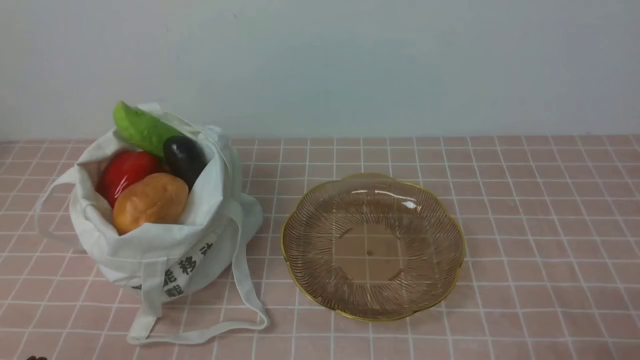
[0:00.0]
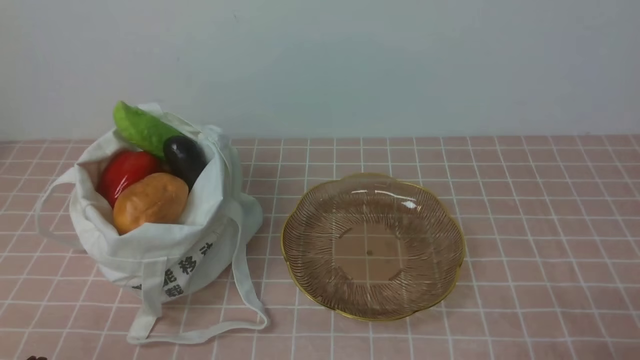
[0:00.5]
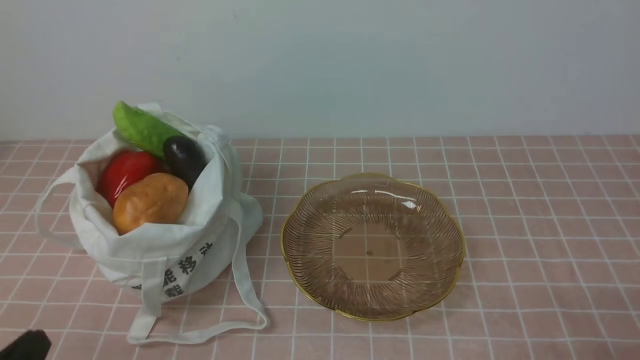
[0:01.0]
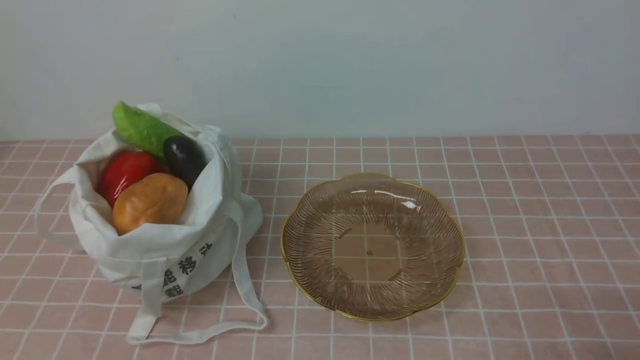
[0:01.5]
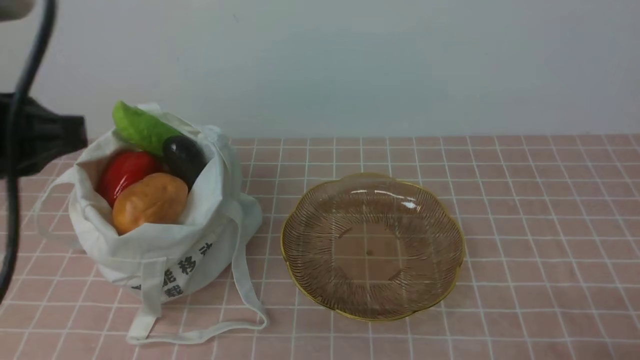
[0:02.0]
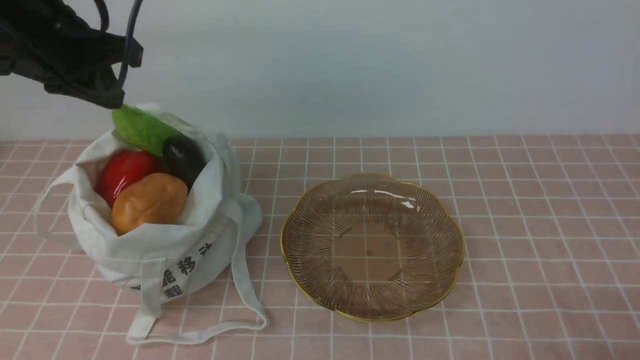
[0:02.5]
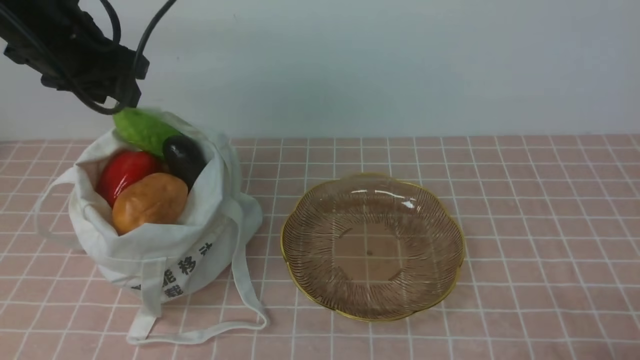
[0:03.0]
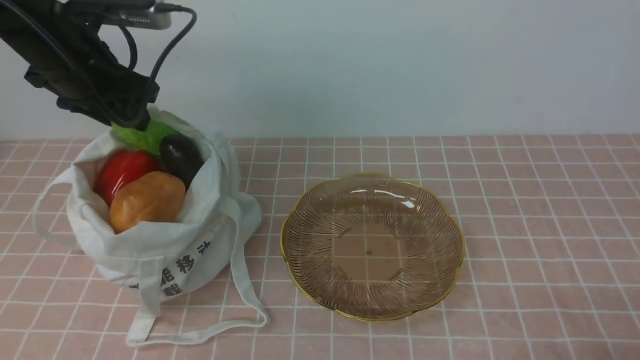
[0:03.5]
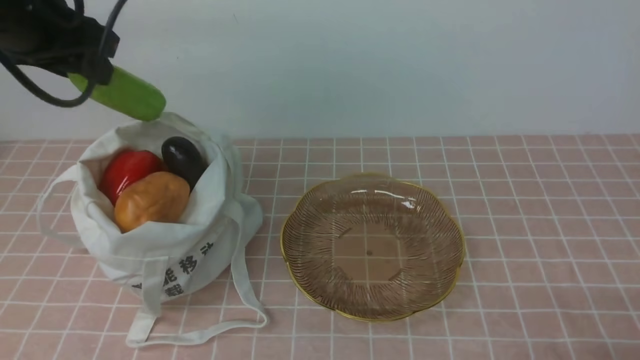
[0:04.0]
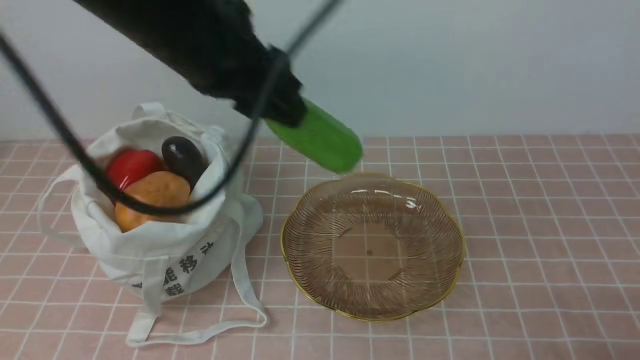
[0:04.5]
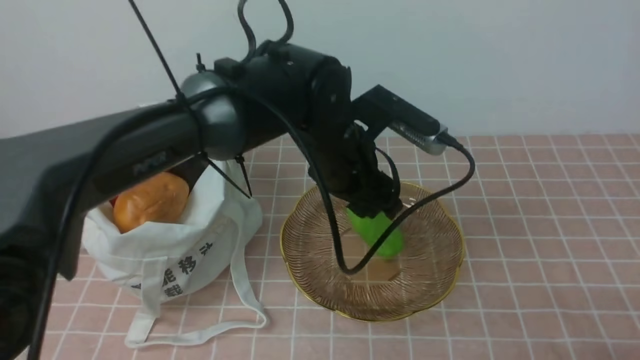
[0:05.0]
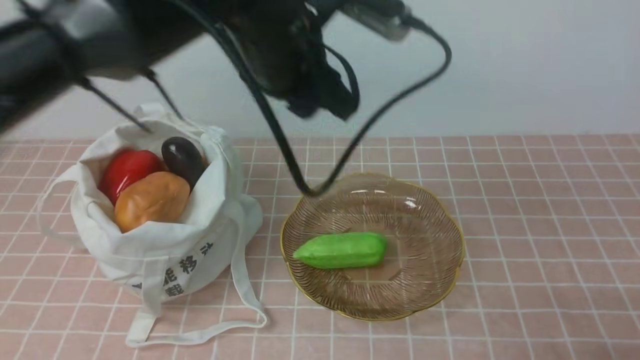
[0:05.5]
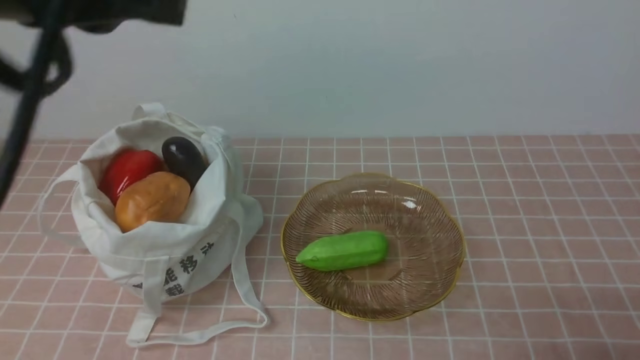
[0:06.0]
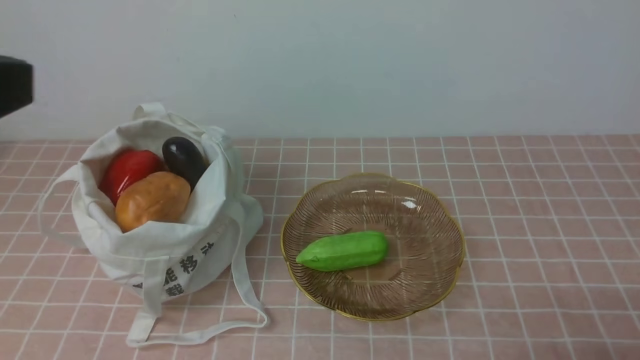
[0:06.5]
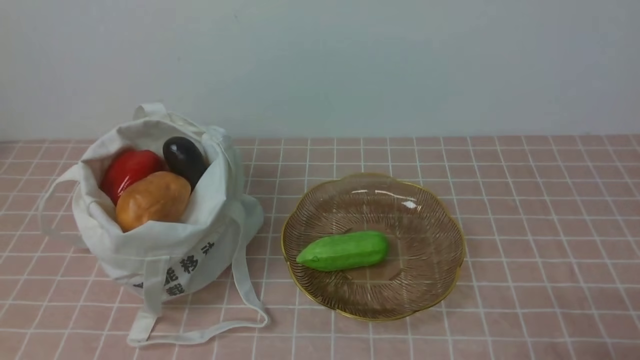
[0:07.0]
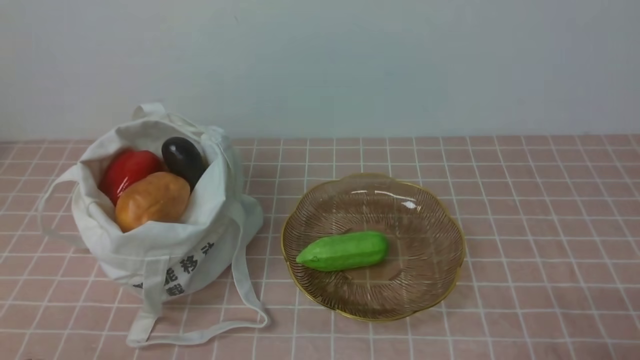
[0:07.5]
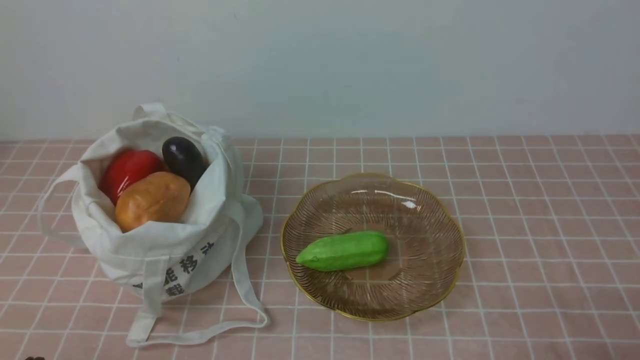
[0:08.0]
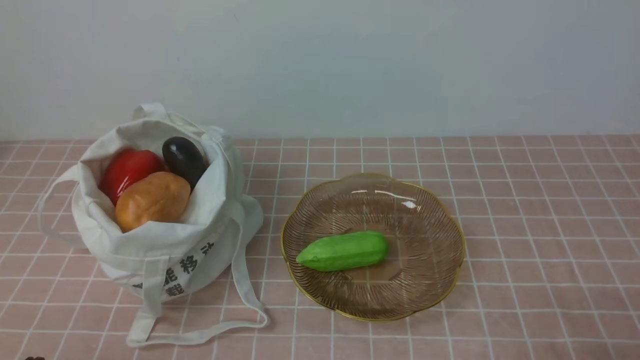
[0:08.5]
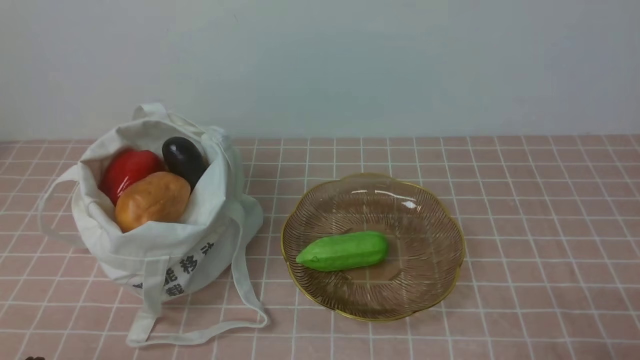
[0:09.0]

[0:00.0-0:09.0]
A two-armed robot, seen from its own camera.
Task of the whole recording: take vegetables from bag on pink coffee tablecloth place on plate.
0:02.0 to 0:04.5: The left gripper moves forward and to the right, about 20 cm, and opens its fingers.
0:04.5 to 0:07.0: The left gripper travels backward and to the left by roughly 30 cm, and closes.

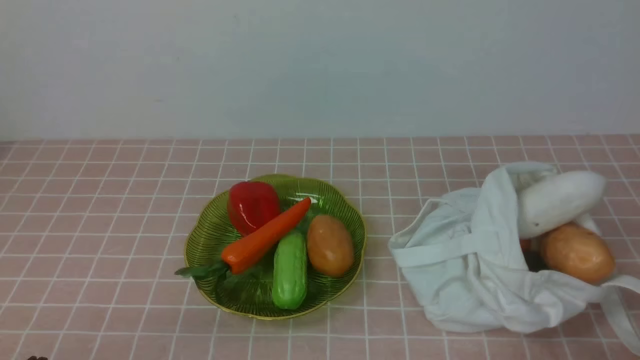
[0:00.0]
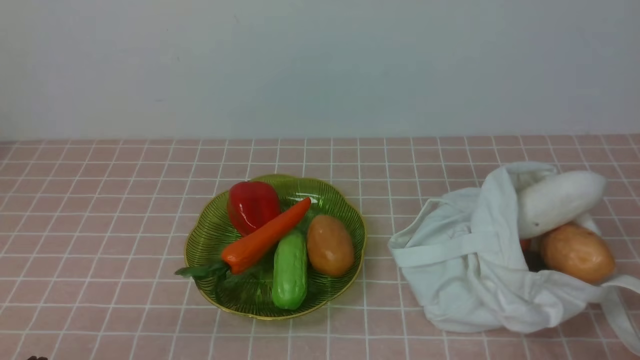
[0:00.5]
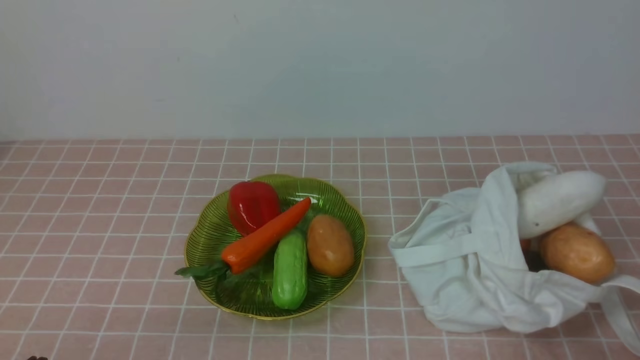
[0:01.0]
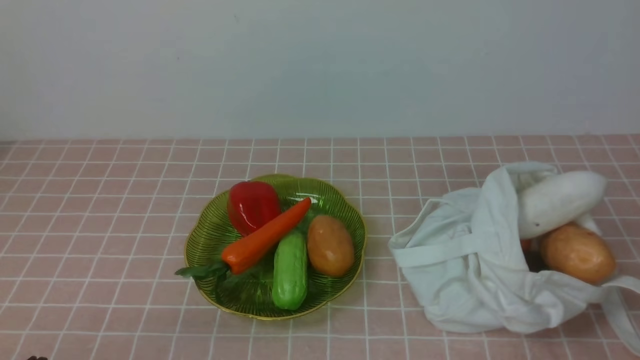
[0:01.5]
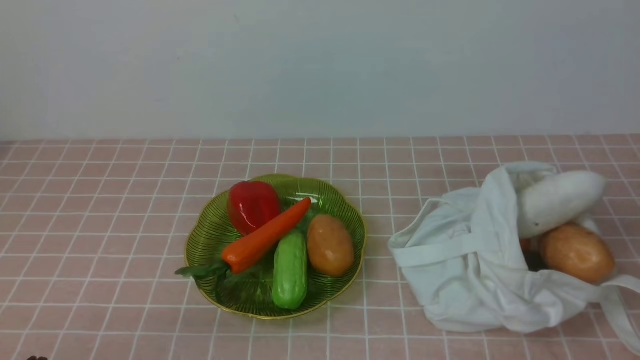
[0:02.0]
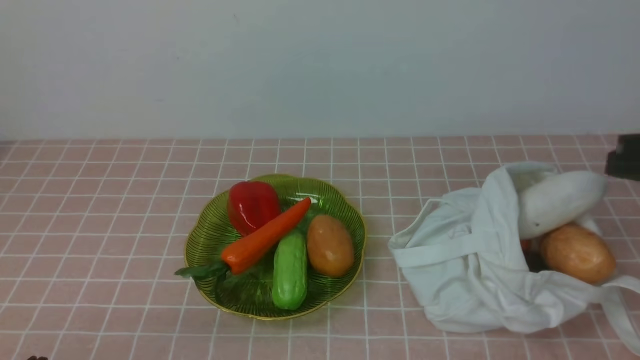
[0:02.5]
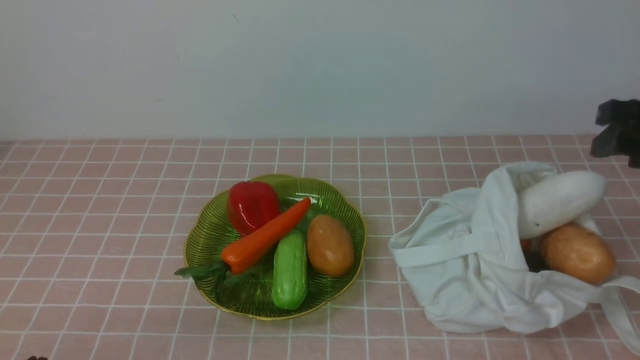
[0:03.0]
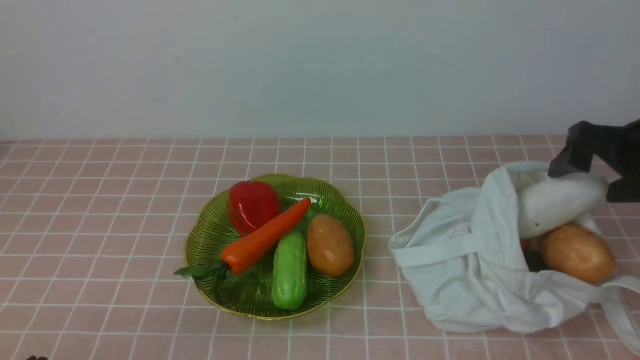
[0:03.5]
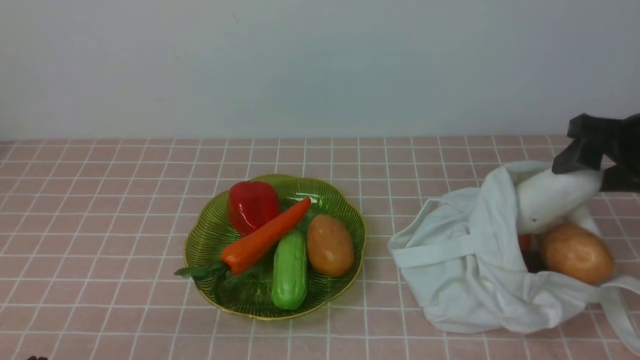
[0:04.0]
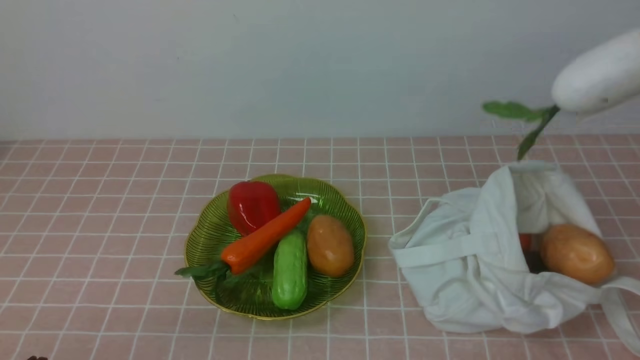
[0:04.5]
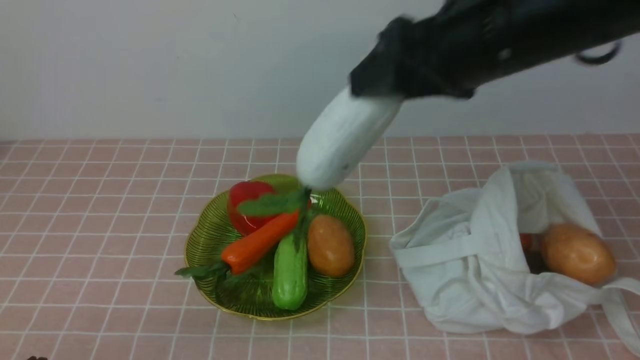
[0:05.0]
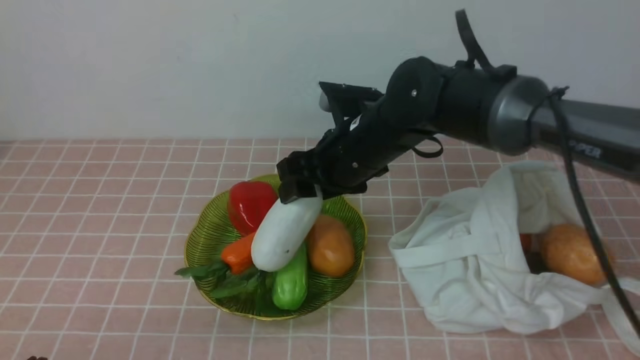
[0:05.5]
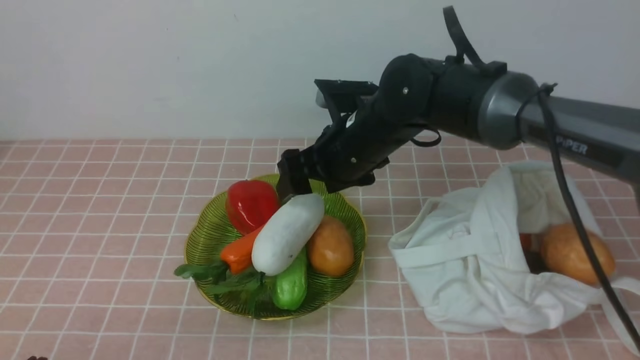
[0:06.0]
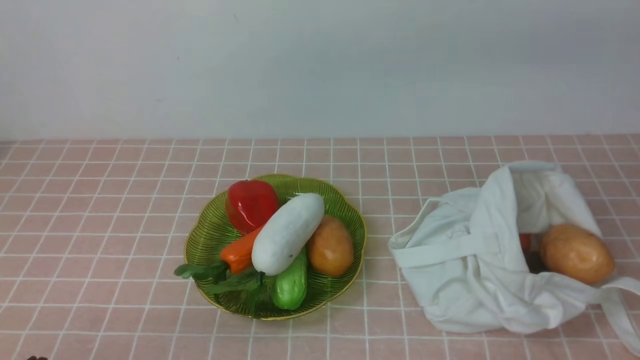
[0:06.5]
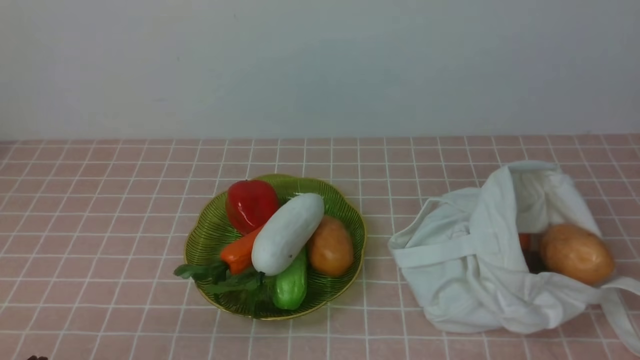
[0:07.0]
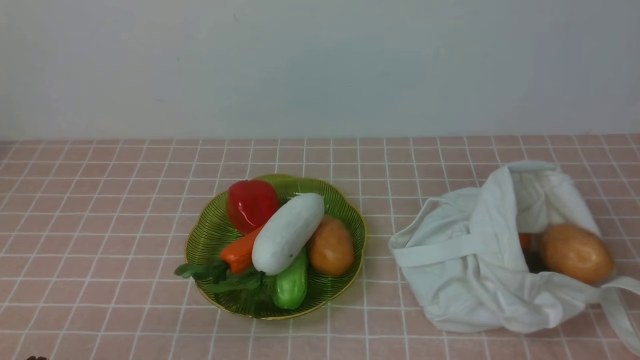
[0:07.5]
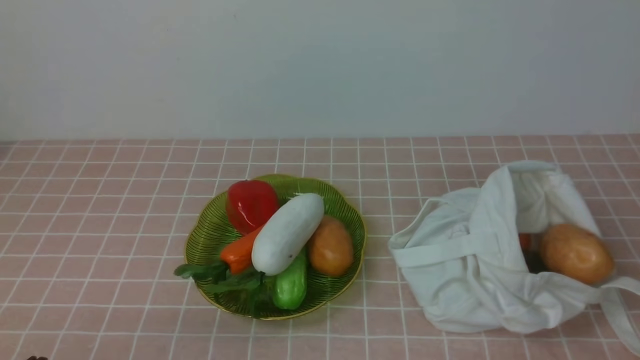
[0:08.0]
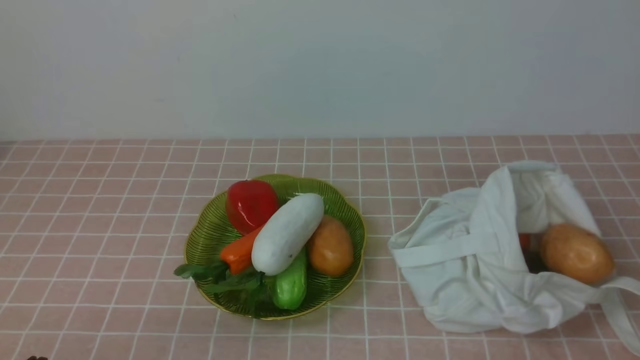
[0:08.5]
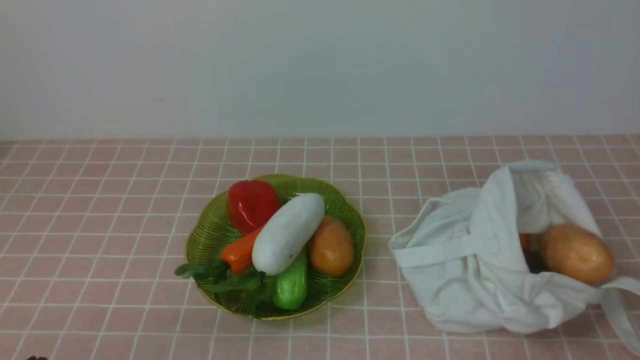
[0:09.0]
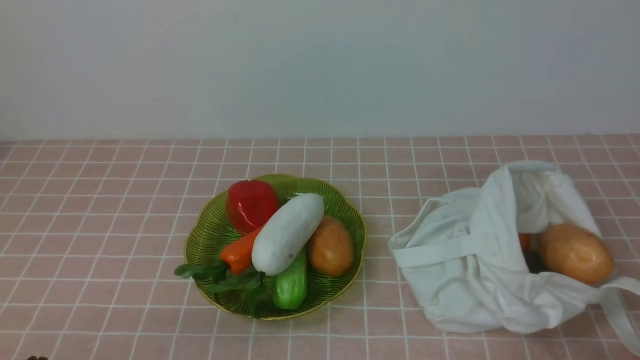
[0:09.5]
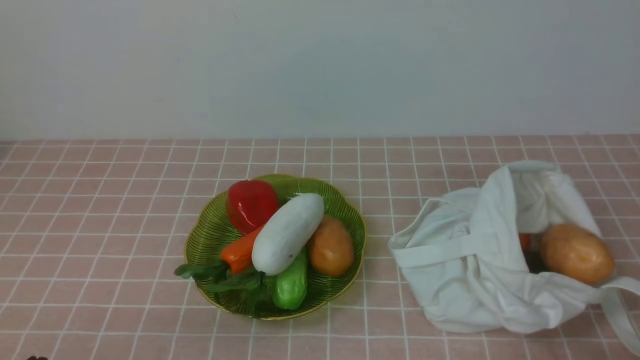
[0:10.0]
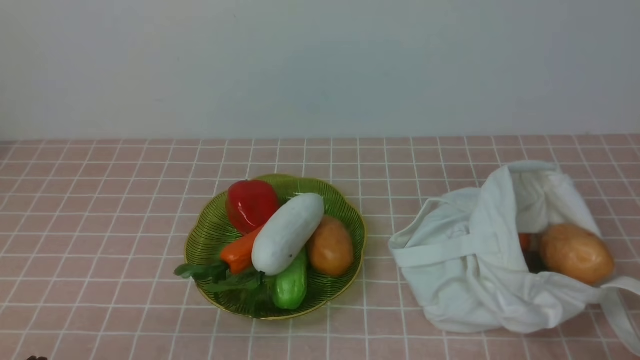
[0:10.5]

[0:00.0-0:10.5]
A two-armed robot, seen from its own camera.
Task of the whole recording: take vegetables from bag on pink coffee tablecloth place on plate.
Step, 0:00.0 to 0:03.5: Grasp the radish with right gripper.
Step, 0:04.0 to 0:06.0: Place the radish on the plate with right gripper.
0:02.0 to 0:04.0: The right gripper heads forward, covering some 25 cm, and opens up.
0:04.0 to 0:06.5: The right gripper heads to the left and upward, covering roughly 30 cm.
0:06.5 to 0:08.5: The right gripper heads backward, to the right and downward, covering some 40 cm, and closes up.
